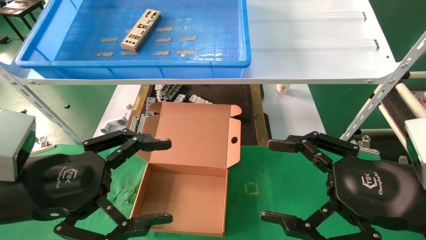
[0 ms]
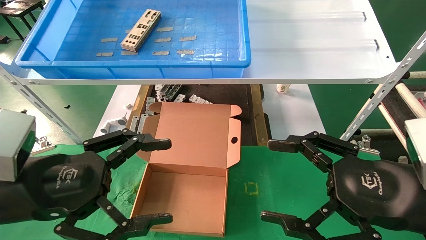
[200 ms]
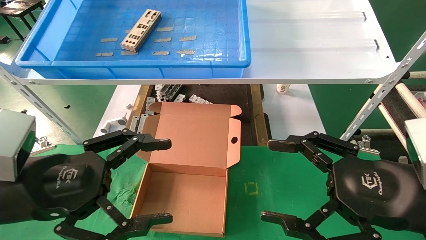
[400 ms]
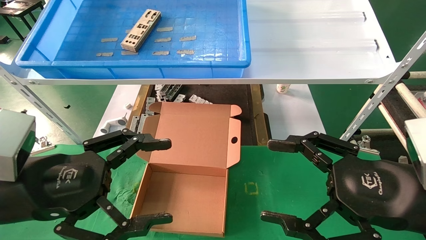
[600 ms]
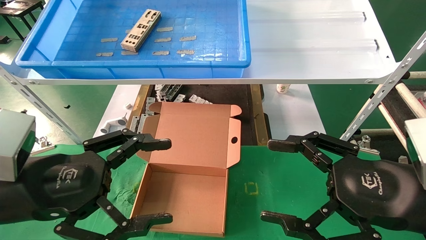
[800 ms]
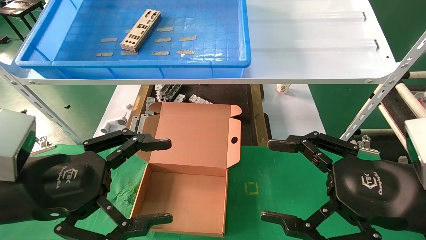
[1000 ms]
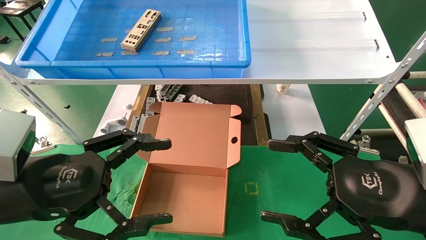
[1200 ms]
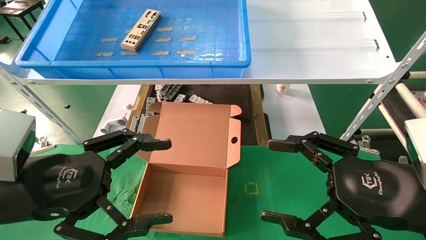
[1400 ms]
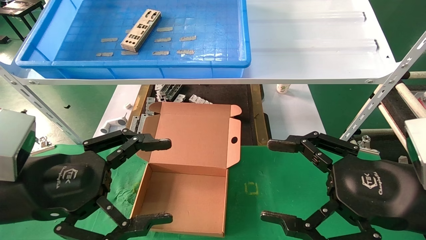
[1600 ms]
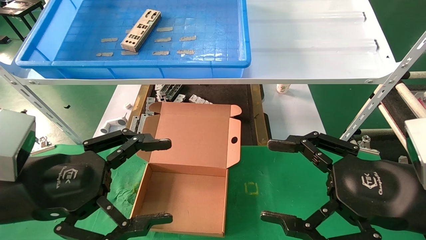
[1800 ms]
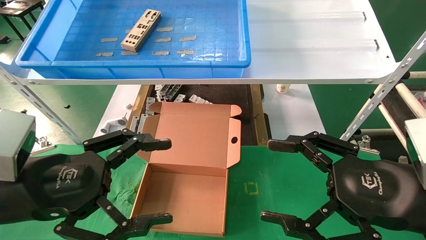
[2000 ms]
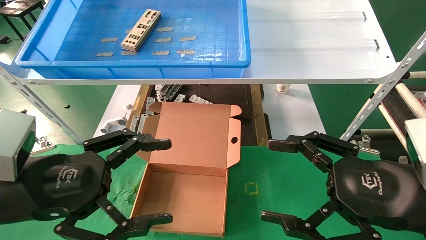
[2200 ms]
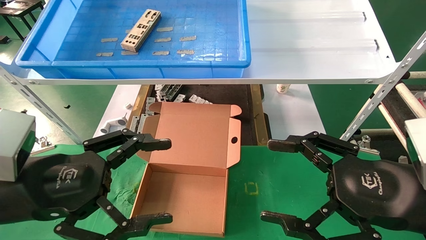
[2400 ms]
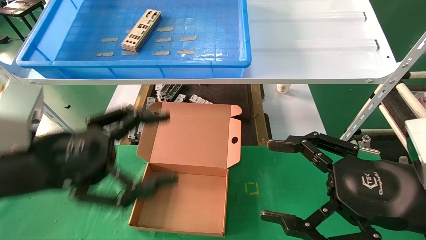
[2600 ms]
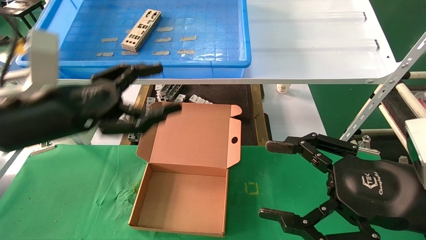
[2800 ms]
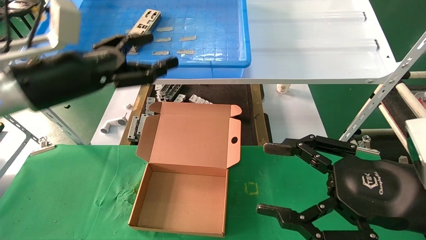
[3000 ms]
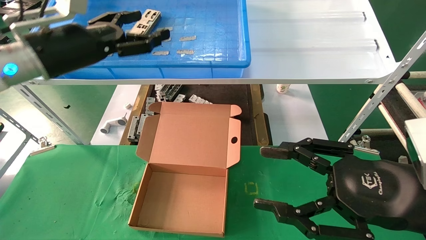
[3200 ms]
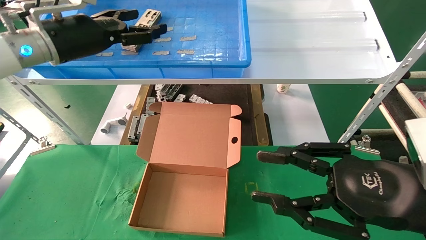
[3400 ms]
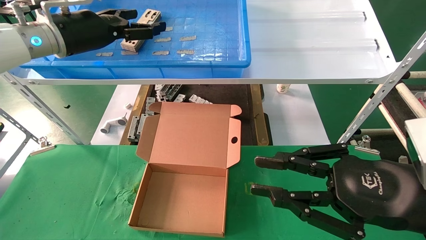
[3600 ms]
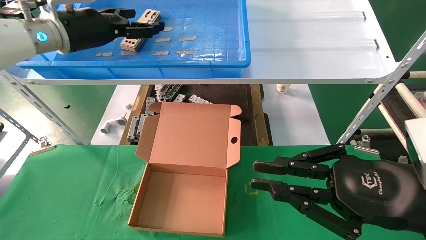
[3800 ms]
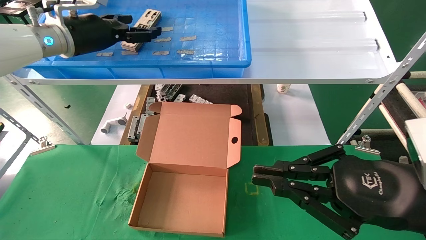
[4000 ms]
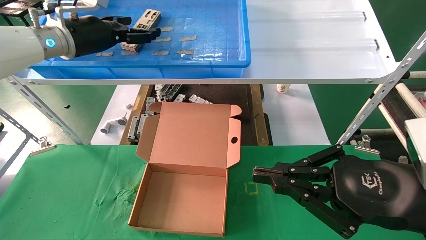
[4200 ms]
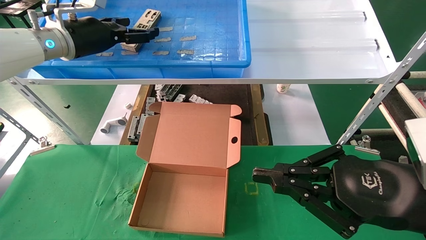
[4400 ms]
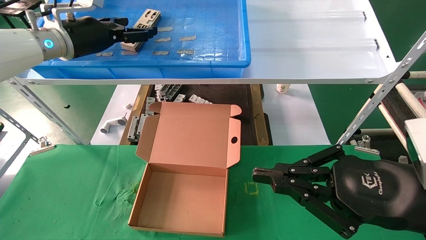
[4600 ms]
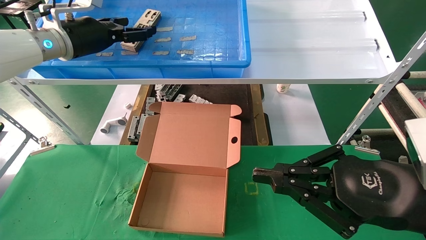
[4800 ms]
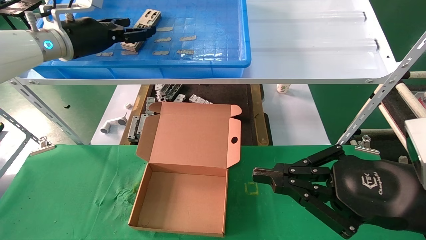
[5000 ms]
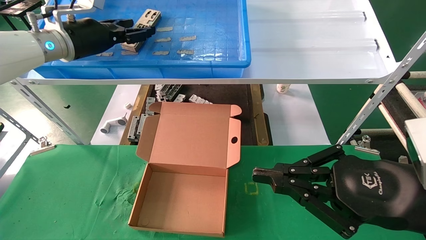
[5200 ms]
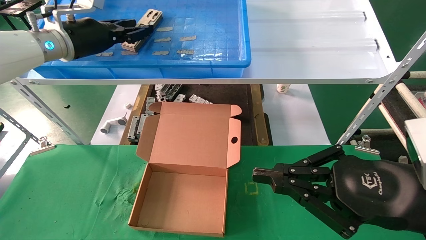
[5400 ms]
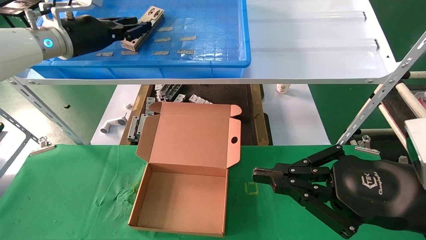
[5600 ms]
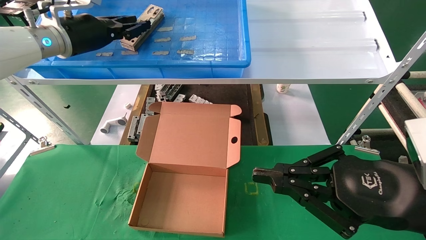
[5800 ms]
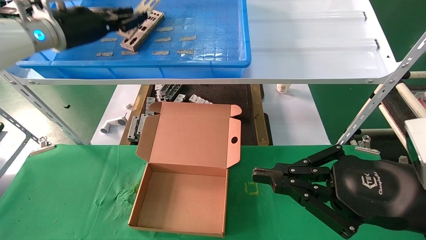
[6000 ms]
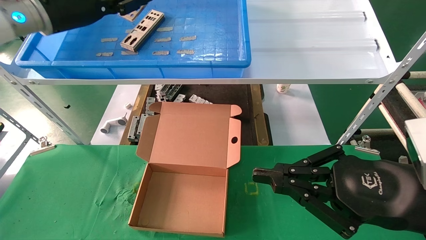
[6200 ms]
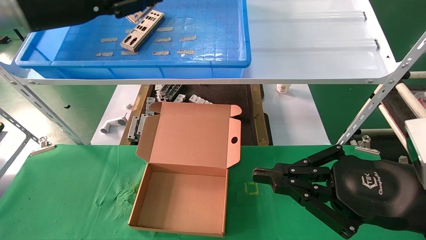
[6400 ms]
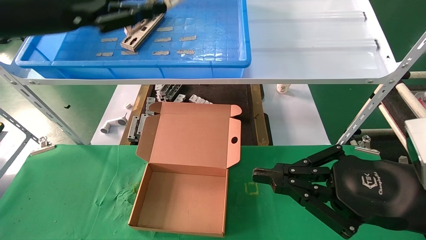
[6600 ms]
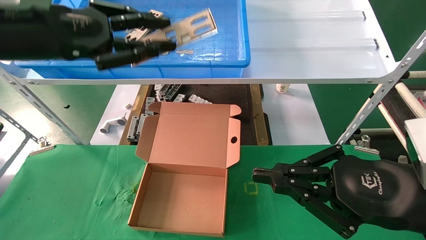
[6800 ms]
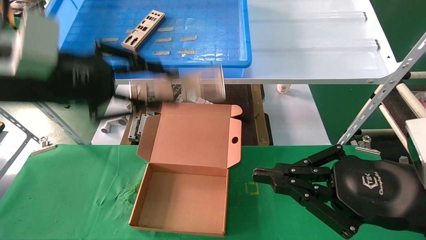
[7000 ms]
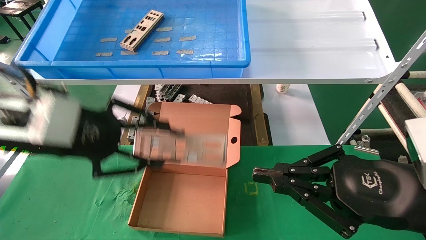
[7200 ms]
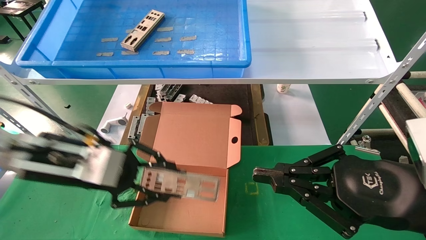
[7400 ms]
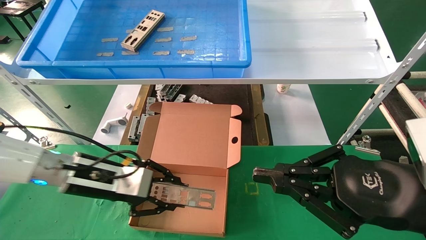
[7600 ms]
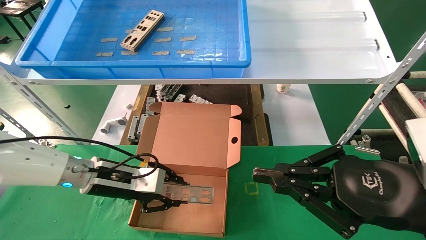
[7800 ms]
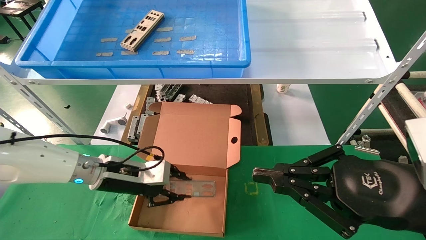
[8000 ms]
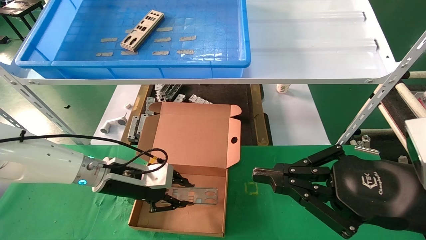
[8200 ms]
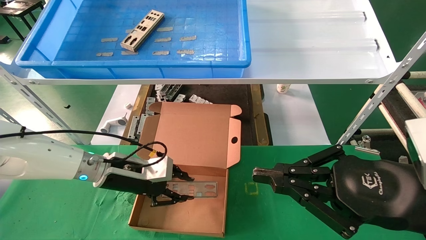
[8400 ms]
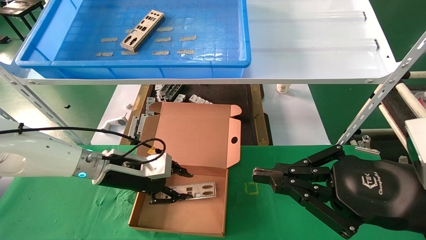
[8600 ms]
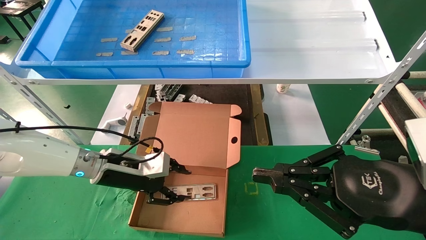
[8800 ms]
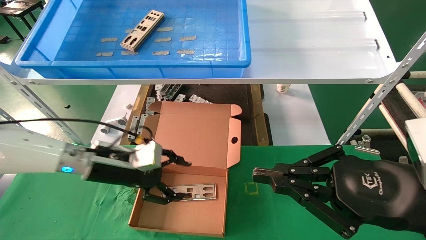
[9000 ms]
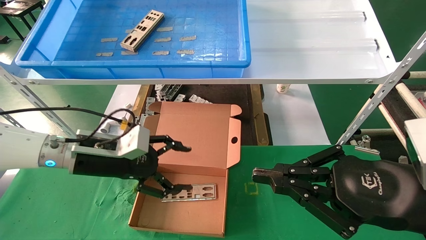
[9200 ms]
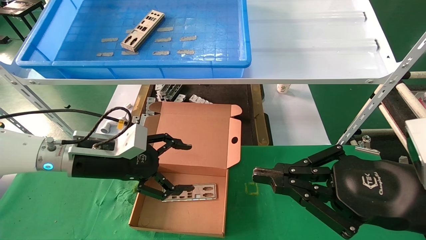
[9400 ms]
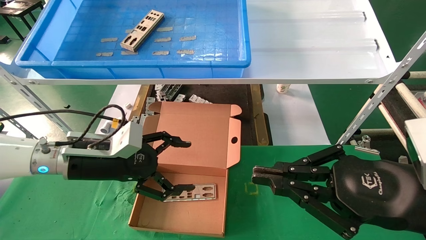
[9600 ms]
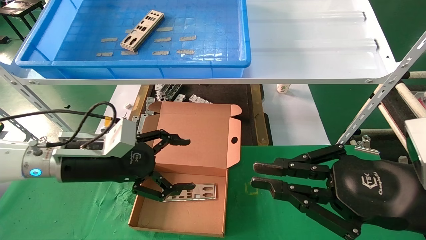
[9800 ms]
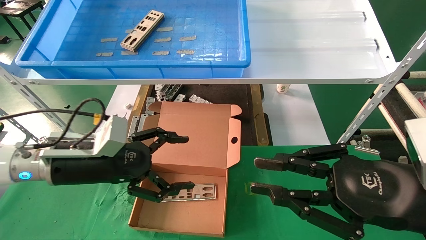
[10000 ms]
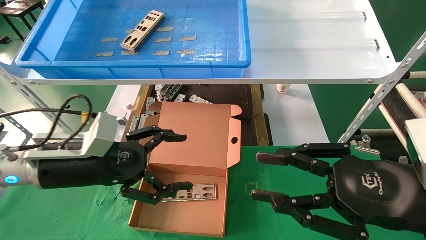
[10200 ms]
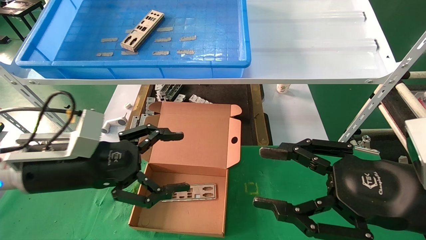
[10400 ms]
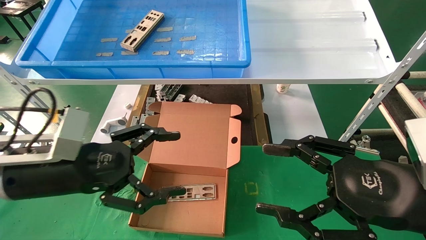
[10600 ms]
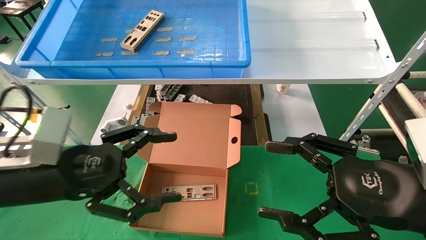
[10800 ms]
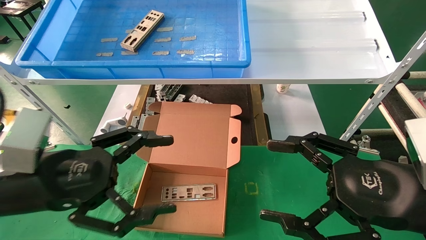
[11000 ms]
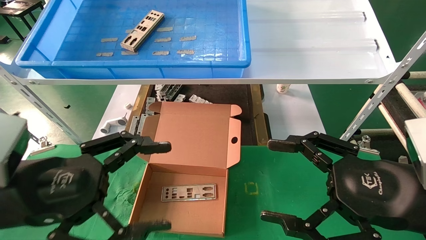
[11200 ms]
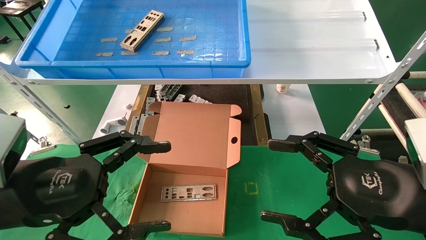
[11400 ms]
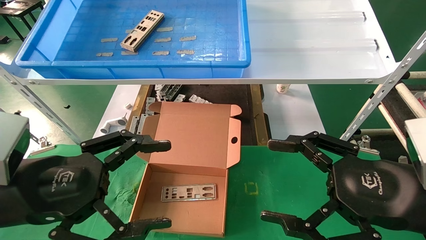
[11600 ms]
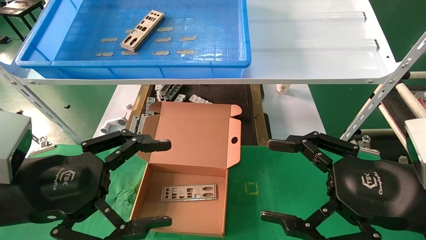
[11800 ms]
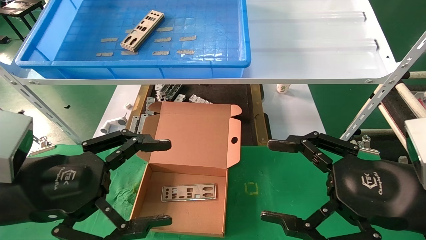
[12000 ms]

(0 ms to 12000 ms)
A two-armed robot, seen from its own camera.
Task of the whole recording: pick up the parts on the tray and put them in the cardboard box.
Step, 2800 ms - 6200 ms: Pick up the IO bracket from the container box.
Step, 6400 ms - 8800 ms: Place the IO bracket into the ingredient slot.
0 ms - 1600 ms: The two grippers keep their place.
1600 ms - 3000 ms: The left gripper heads forward and upward, covering roughly 15 cm.
3000 ms - 4400 ms: The left gripper shifts approximately 15 cm forward and upward; the right gripper closes its fingers.
4400 ms - 6000 ms: The left gripper closes.
6000 ms - 7600 ms: The left gripper is displaced downward by some 25 cm.
7600 ms - 9000 ms: The left gripper opens.
9000 ms - 10400 ms: The left gripper is displaced backward by about 10 cm, and opens, while the right gripper opens up.
10400 ms - 12000 ms: The right gripper opens up. The left gripper is displaced backward by approximately 10 cm.

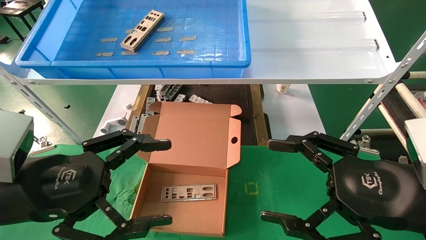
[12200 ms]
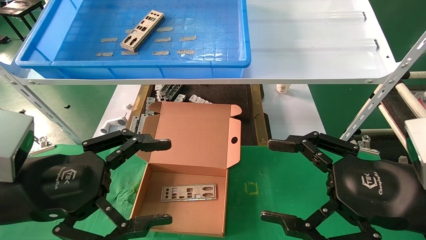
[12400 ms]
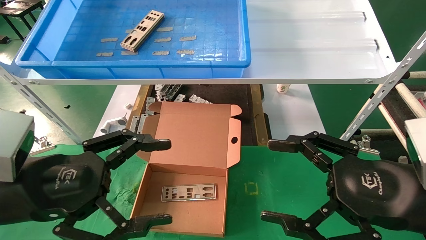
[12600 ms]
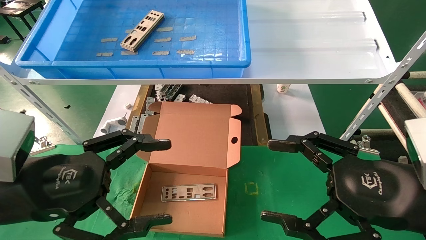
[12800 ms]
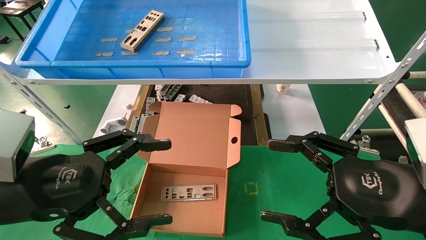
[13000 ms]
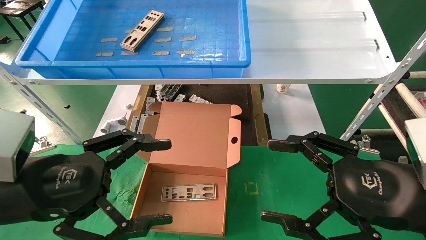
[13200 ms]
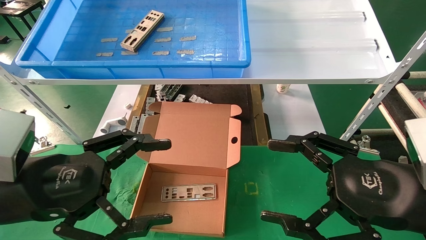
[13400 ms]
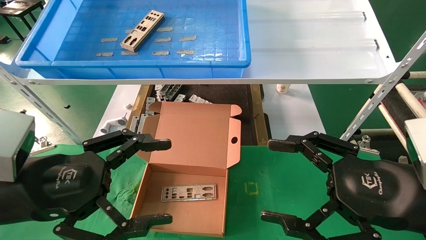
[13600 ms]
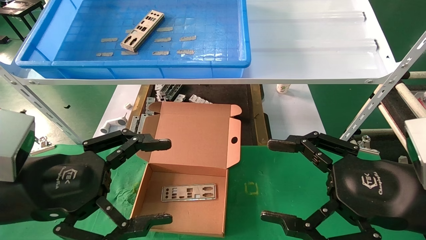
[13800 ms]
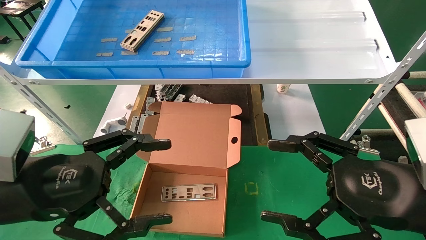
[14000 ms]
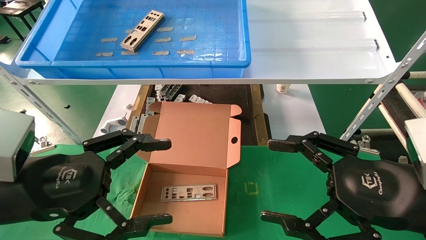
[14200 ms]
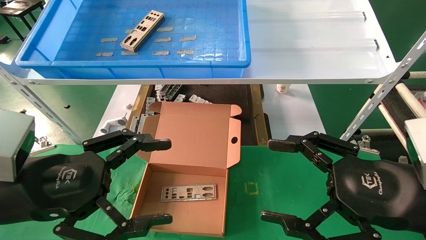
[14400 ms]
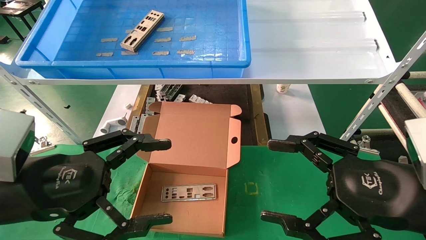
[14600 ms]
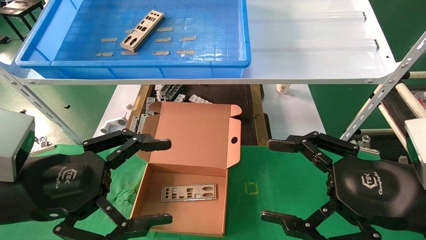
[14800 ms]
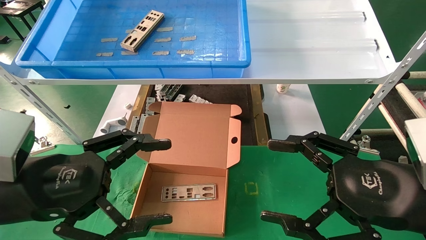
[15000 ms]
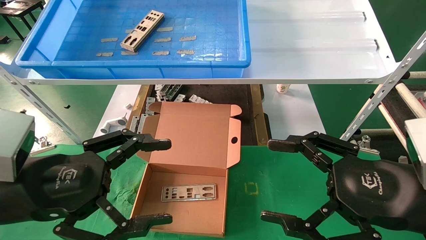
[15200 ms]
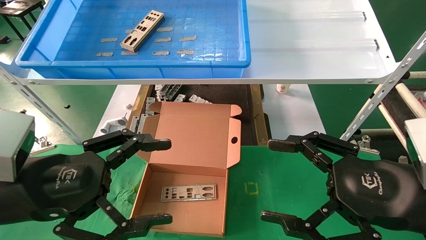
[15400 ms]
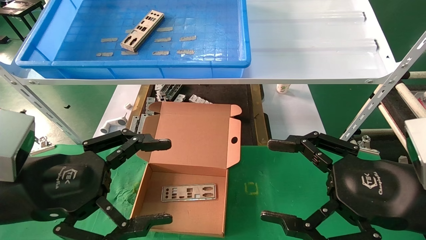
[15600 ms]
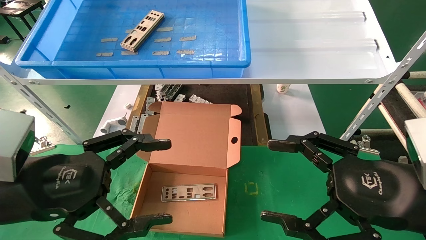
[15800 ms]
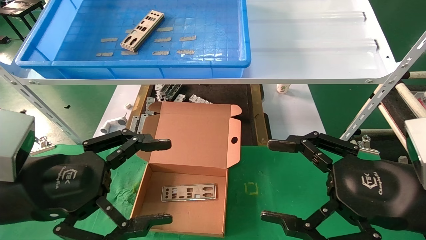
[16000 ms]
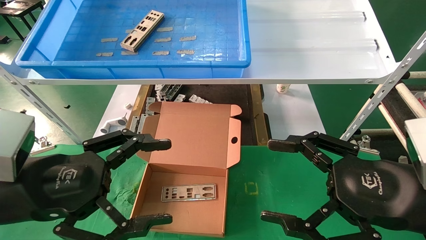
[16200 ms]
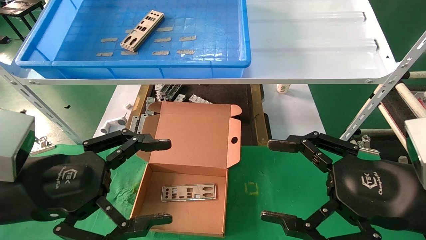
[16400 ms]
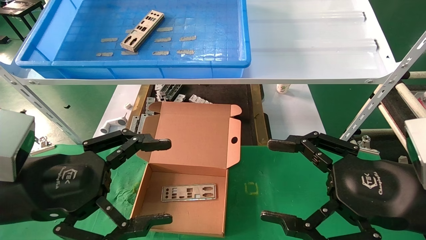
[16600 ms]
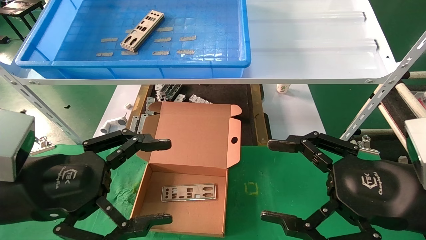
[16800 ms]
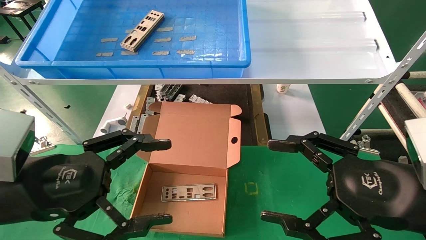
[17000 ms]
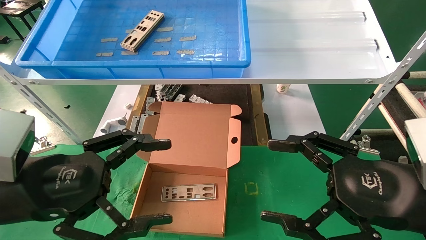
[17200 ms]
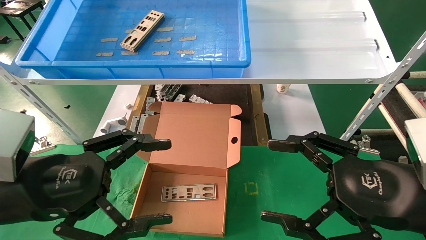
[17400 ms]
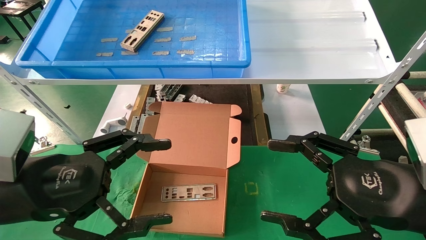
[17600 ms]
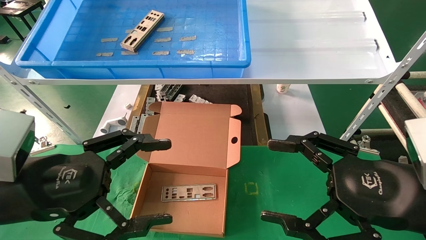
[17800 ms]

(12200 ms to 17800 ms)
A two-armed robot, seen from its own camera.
Task of the whole recording: pick up the parts on the tray and put them in the cardboard box.
12200 ms - 17800 ms: Both grippers stay put.
